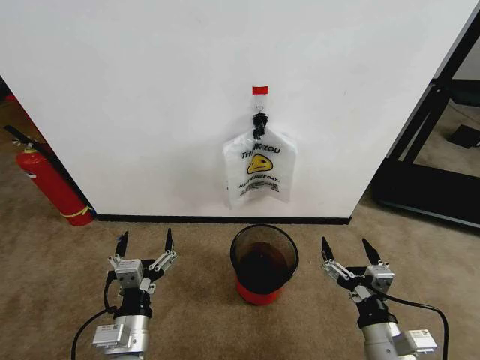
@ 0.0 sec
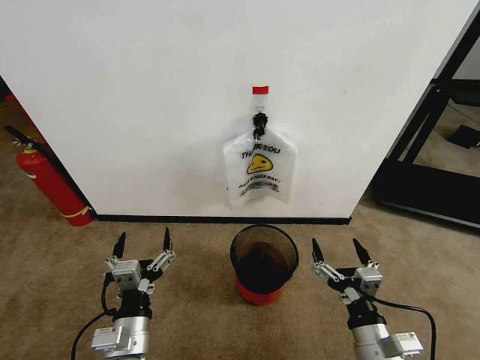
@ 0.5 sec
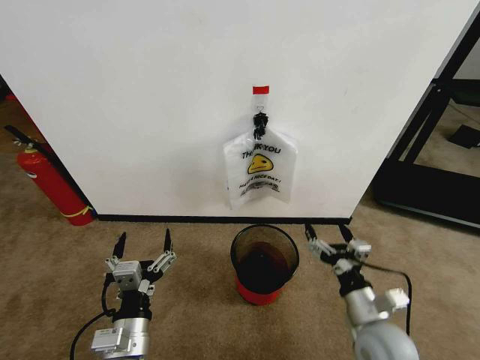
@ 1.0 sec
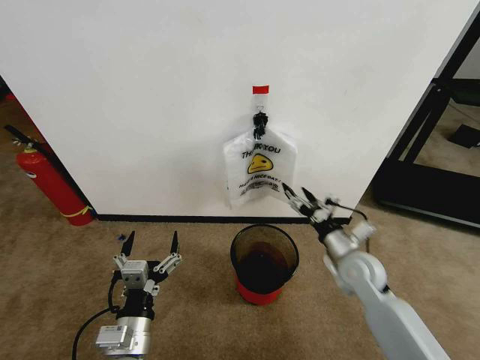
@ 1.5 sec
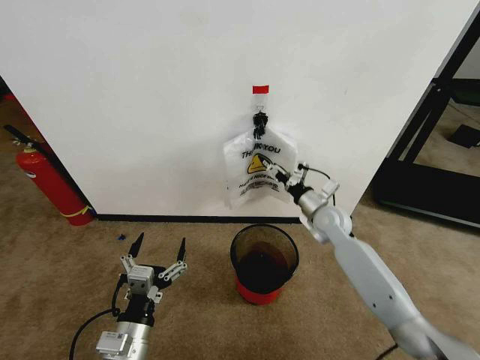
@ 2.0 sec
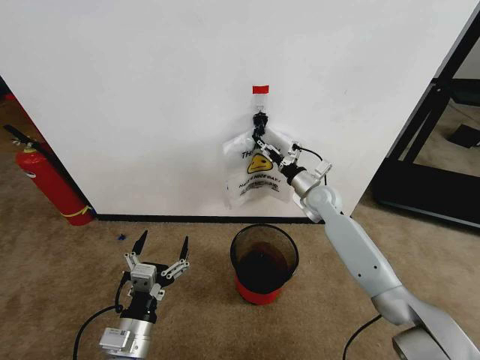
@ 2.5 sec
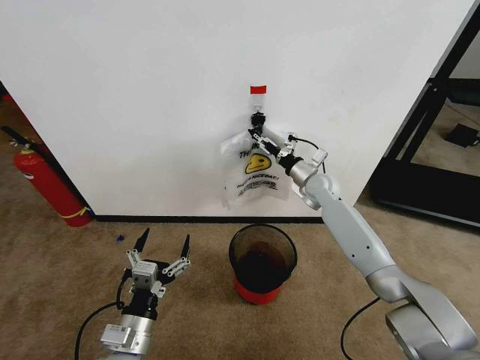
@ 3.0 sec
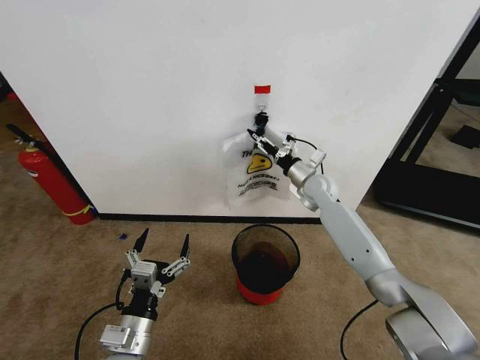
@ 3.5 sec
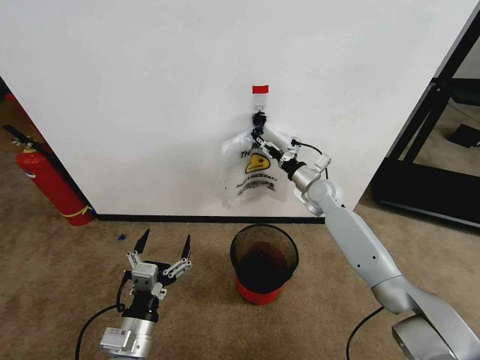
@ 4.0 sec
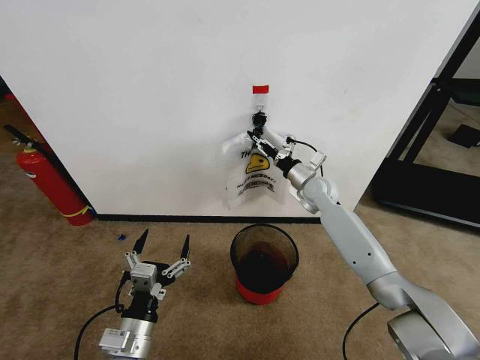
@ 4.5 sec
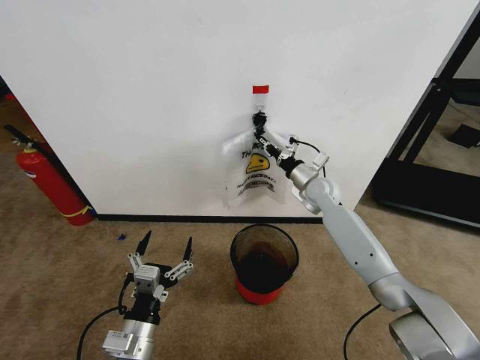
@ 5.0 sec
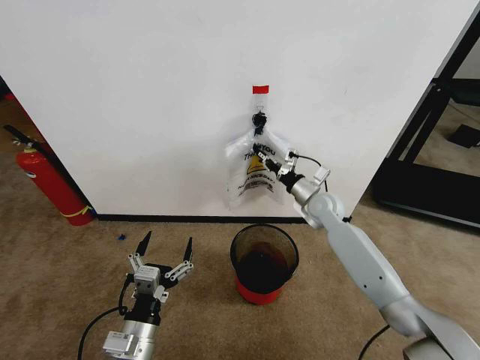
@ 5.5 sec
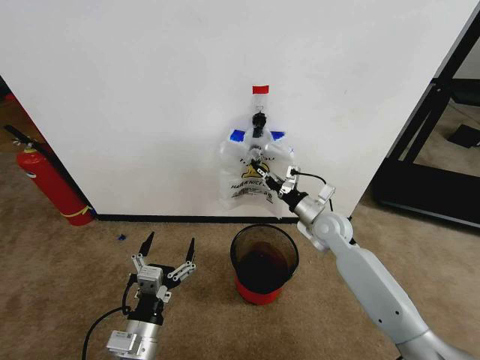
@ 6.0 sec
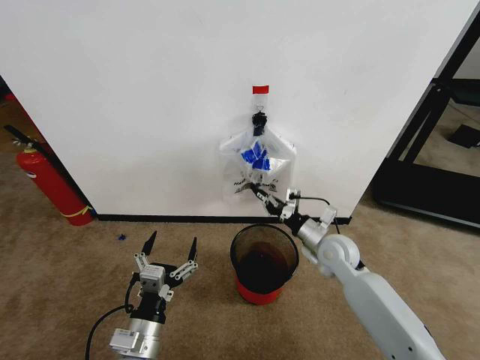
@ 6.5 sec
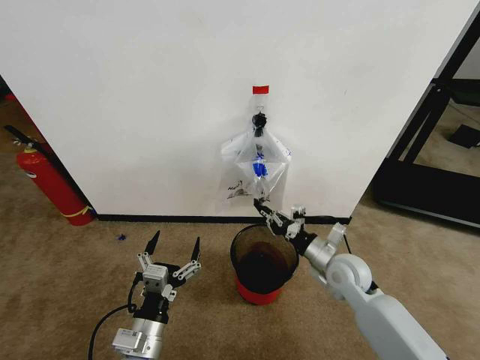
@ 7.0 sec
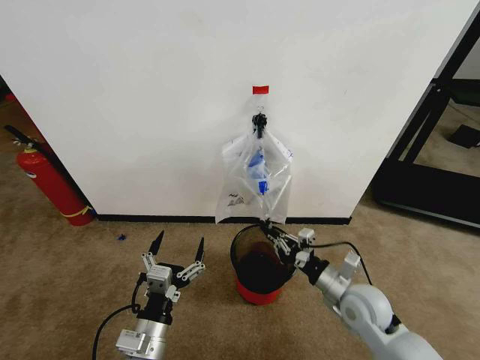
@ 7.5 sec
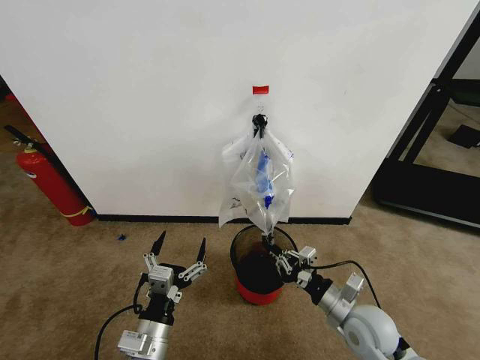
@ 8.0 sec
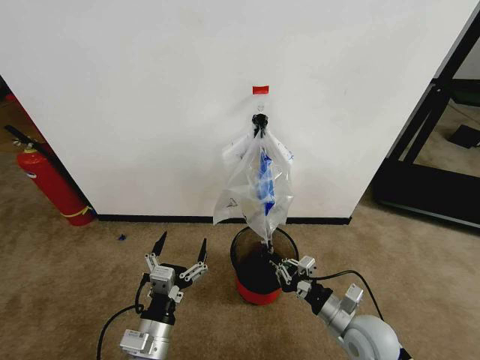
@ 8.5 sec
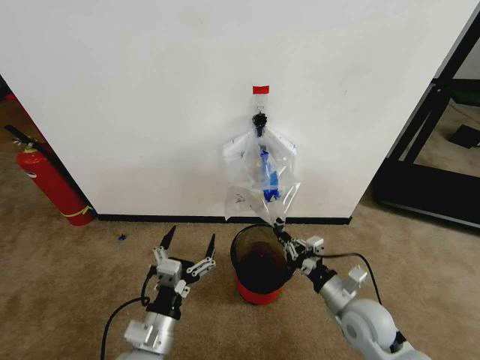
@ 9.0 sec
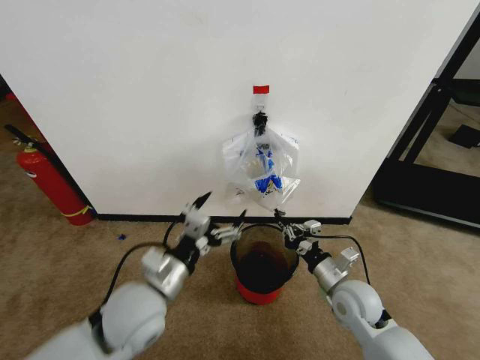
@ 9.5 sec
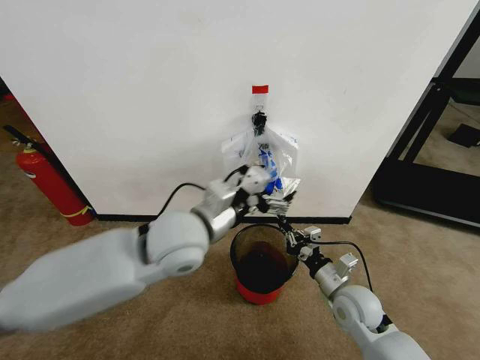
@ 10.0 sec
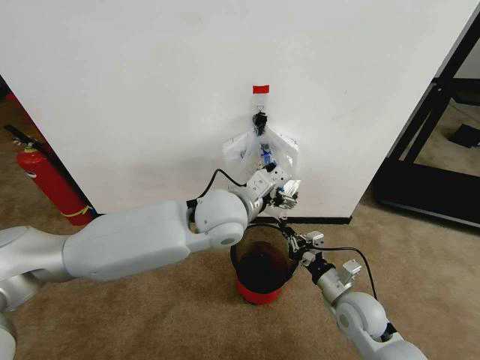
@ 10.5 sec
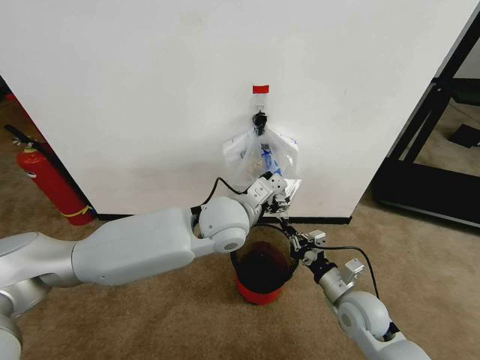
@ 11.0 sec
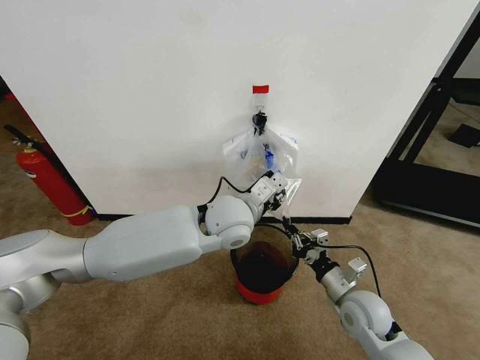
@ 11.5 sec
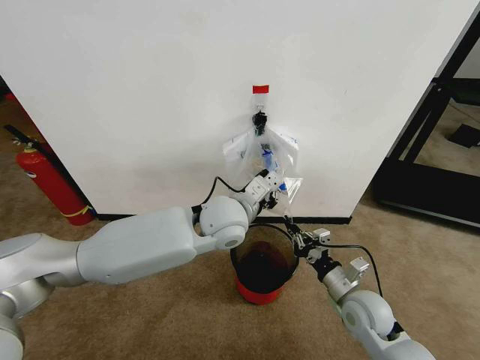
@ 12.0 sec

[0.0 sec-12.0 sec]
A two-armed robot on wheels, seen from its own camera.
Task of the whole recording: Pick up the garbage bag from the wall and place it over the trash bin.
2.0 sec to 4.0 sec: The right gripper goes roughly 5 cm forward, and closes, then opens again.
4.0 sec to 6.0 sec: The right gripper is displaced backward by about 10 cm, and closes its fingers.
6.0 sec to 8.0 sec: The right gripper goes approximately 20 cm backward.
8.0 sec to 10.0 sec: The left gripper shifts roughly 30 cm upward, forward and to the right.
10.0 sec to 12.0 sec: The left gripper shifts some 10 cm forward and to the right, and closes.

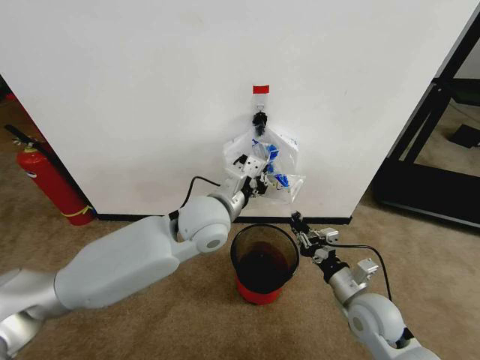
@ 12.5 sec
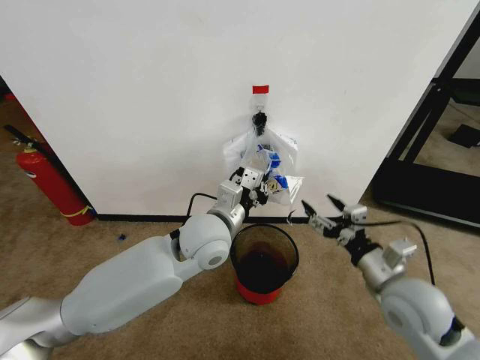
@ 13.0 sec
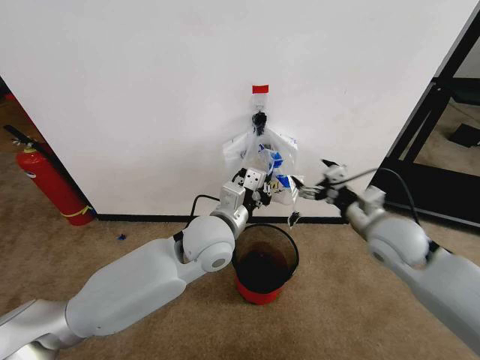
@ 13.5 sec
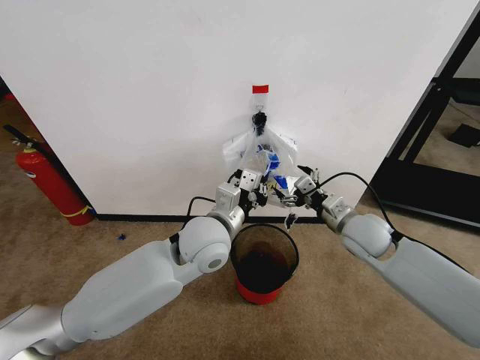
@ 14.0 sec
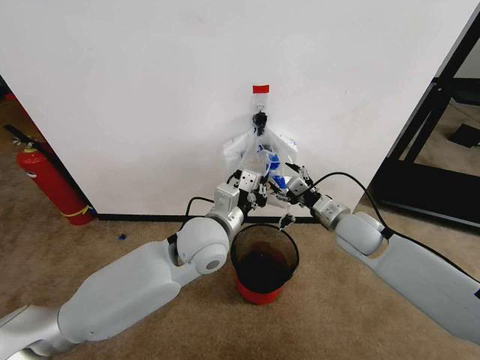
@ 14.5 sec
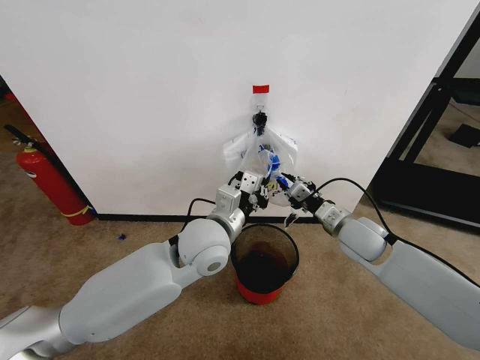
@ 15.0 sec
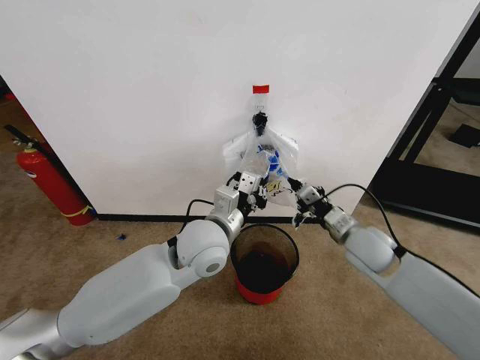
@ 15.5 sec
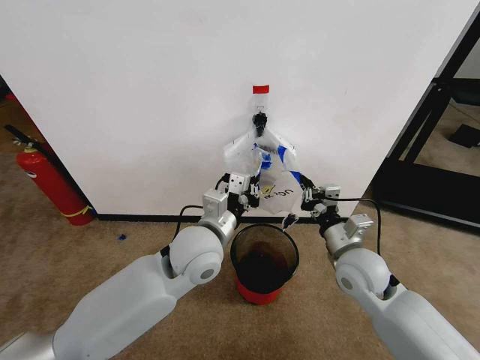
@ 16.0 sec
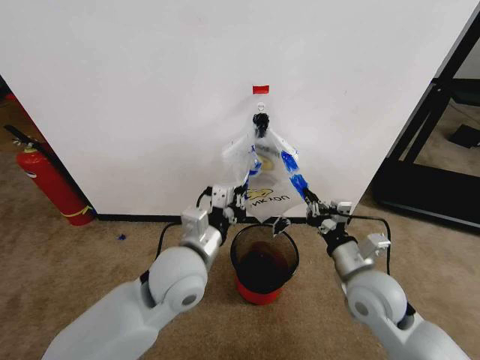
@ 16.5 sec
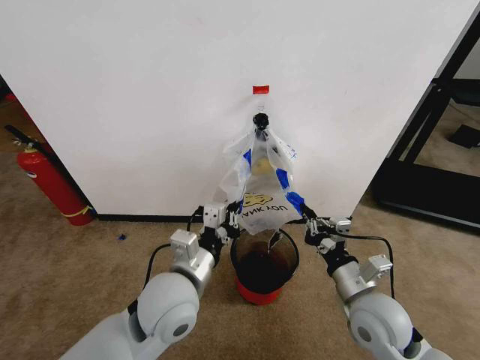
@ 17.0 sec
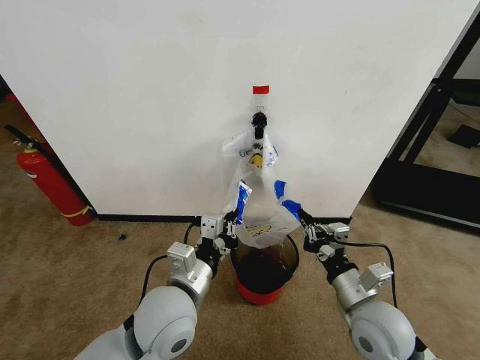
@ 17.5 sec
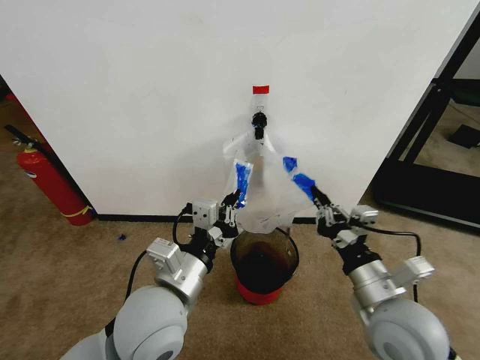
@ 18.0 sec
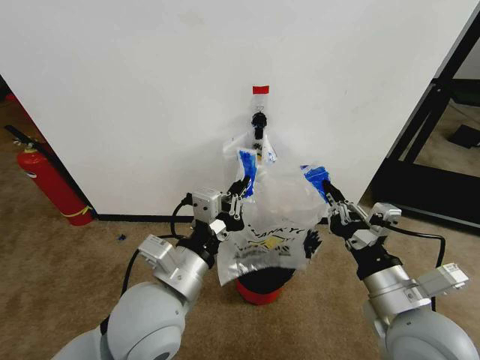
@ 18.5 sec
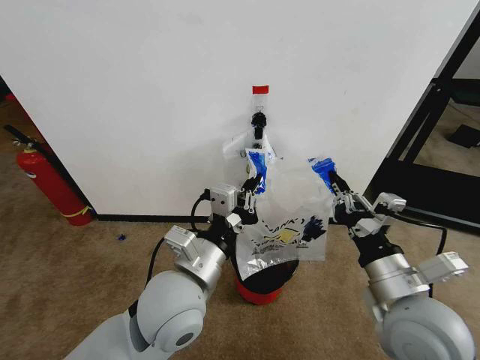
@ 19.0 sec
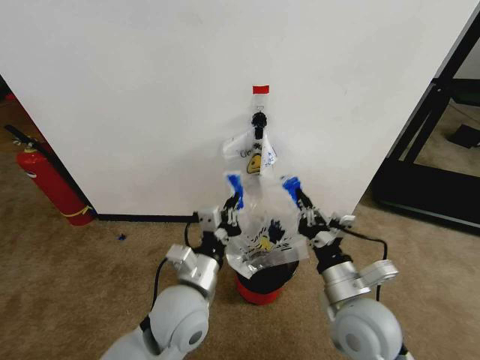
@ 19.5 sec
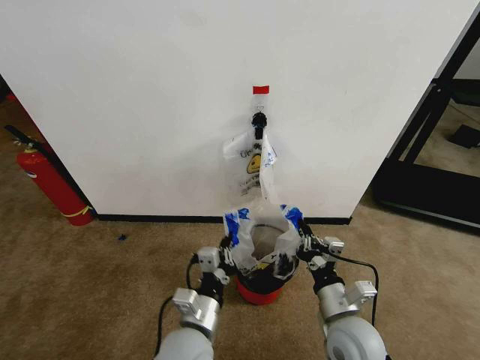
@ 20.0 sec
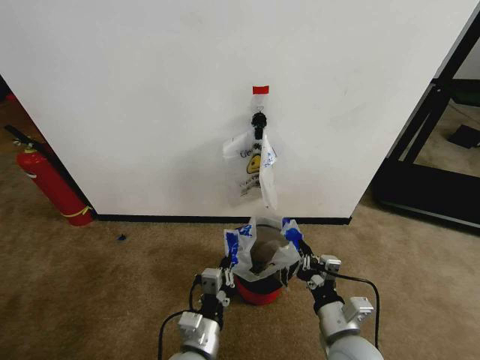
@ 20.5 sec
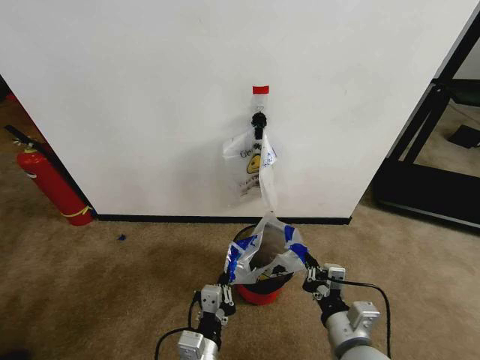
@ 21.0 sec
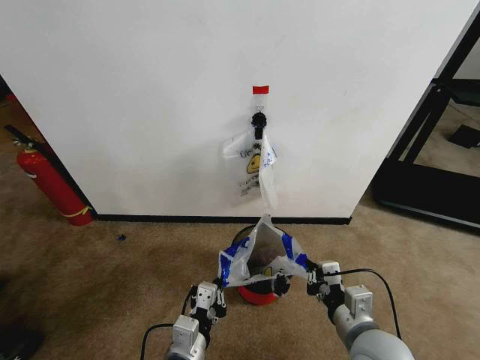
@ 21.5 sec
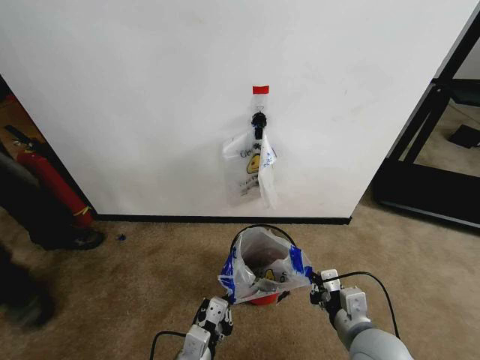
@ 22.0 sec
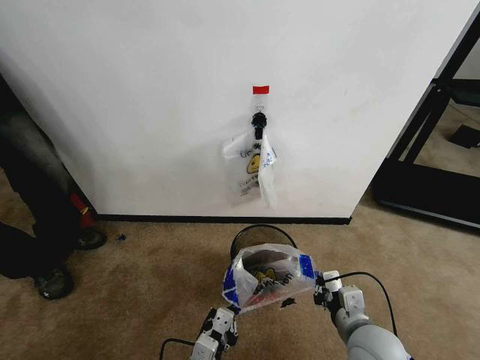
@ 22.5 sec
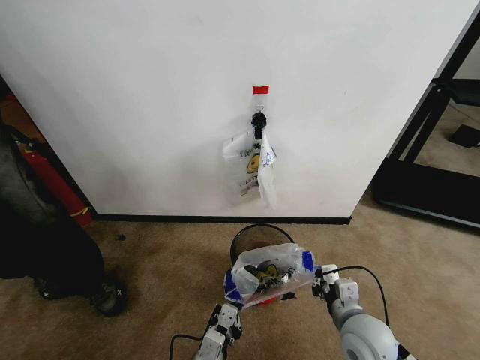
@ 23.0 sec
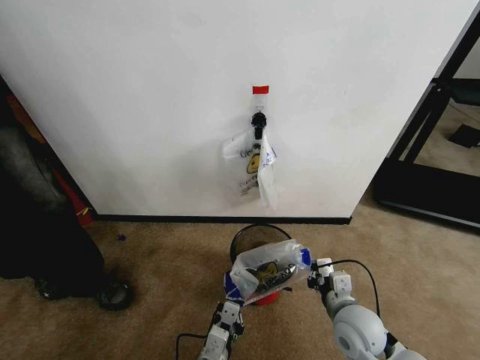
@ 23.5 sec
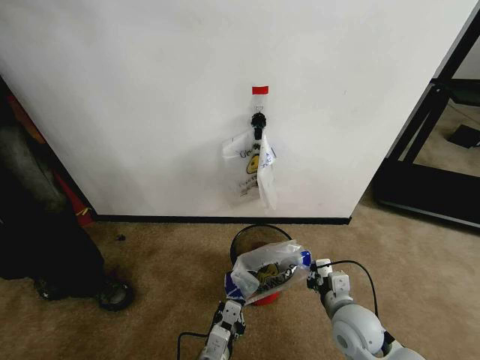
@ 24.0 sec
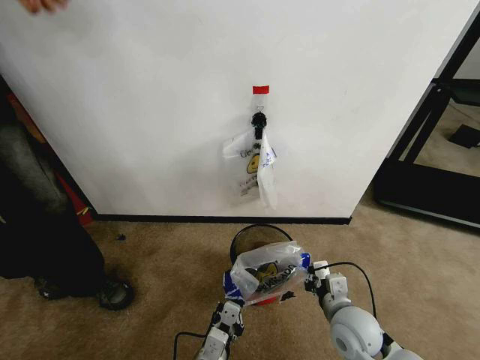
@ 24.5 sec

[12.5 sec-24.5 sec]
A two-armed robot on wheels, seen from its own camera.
Task of the whole recording: Pick up the garbage bag from the wall and place it over the trash bin.
12.5 sec to 14.5 sec: The right gripper heads forward and upward, covering some 15 cm, and opens its fingers.
14.5 sec to 16.5 sec: The right gripper shifts approximately 15 cm backward, and closes, while the left gripper heads backward, covering roughly 5 cm.
16.5 sec to 18.5 sec: The right gripper moves backward and upward, roughly 10 cm, while the left gripper is displaced backward by approximately 10 cm.
18.5 sec to 20.5 sec: The grippers both shift downward by roughly 20 cm.
22.5 sec to 24.5 sec: The right gripper moves some 5 cm.

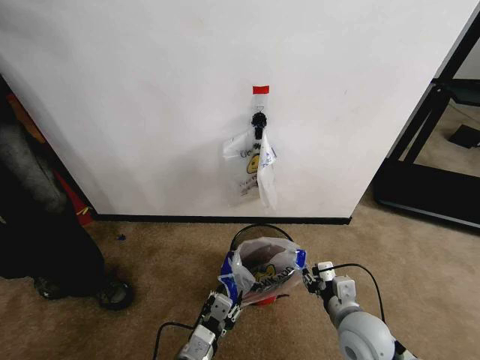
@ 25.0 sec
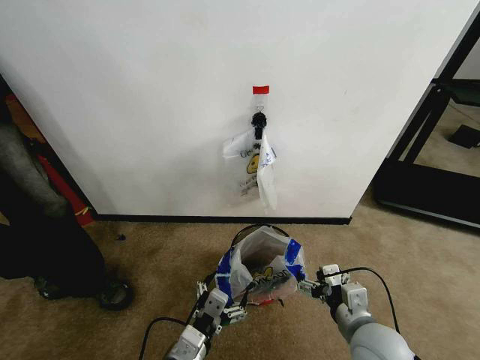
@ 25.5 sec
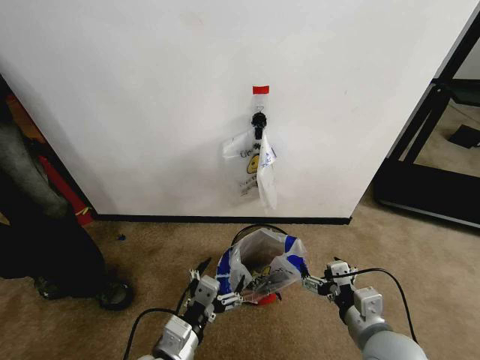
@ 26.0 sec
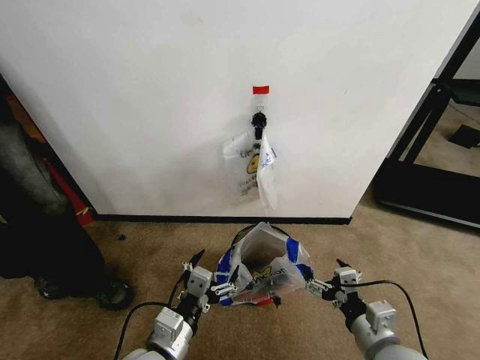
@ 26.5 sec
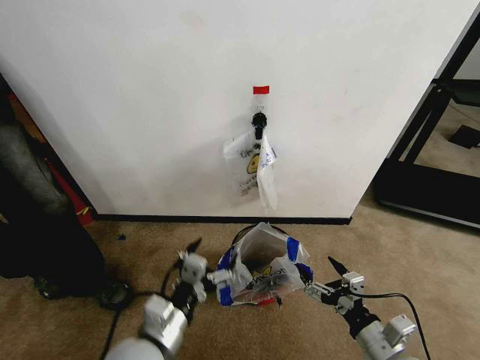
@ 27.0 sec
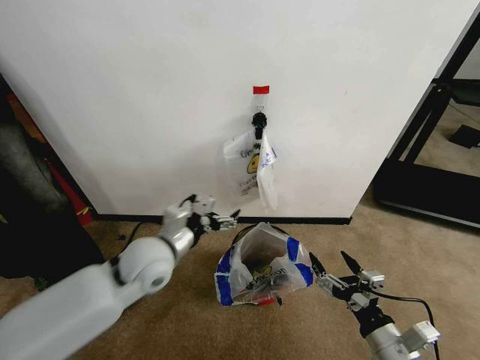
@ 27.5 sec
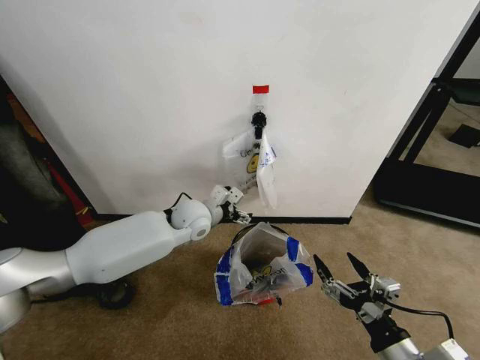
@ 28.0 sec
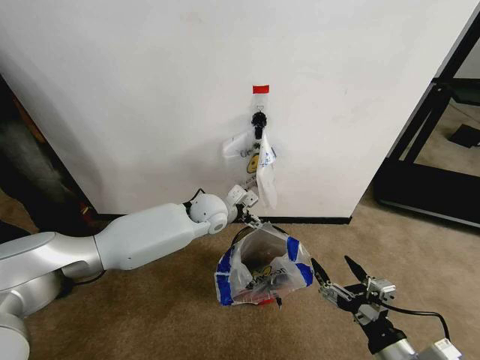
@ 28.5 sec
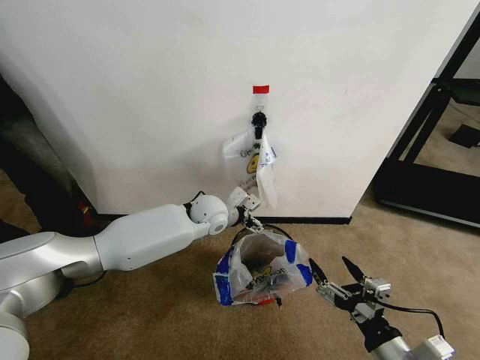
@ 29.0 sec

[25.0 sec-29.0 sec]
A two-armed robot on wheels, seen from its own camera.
Task of the whole recording: Pick up the garbage bag from the wall and place it over the trash bin.
25.0 sec to 27.0 sec: The left gripper is displaced upward by some 10 cm, and opens up. The right gripper travels backward and to the right by some 10 cm, and opens.
27.0 sec to 29.0 sec: The left gripper goes approximately 30 cm forward; the right gripper moves about 5 cm.
